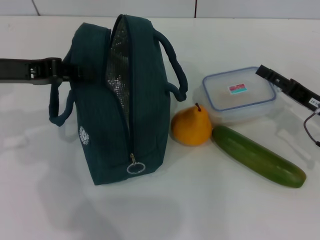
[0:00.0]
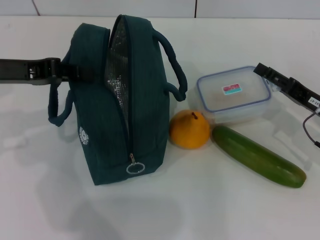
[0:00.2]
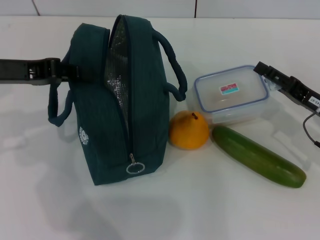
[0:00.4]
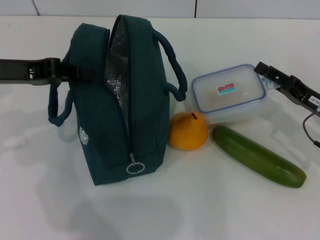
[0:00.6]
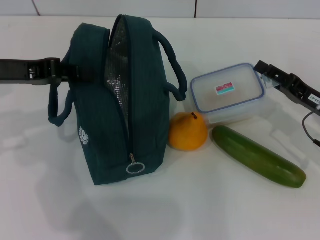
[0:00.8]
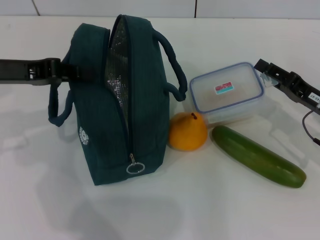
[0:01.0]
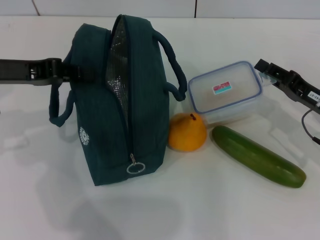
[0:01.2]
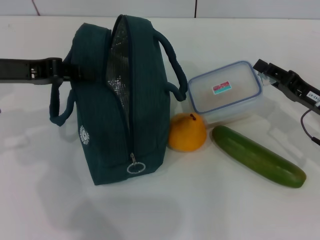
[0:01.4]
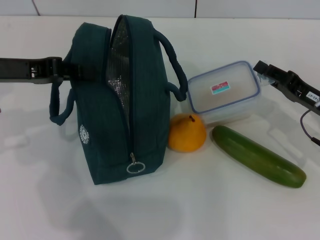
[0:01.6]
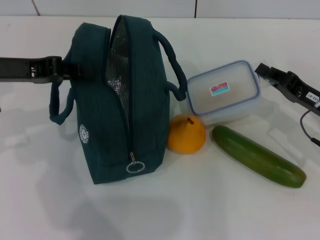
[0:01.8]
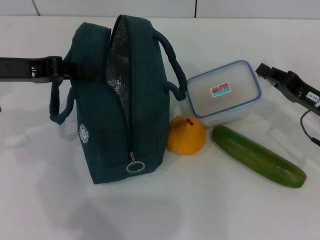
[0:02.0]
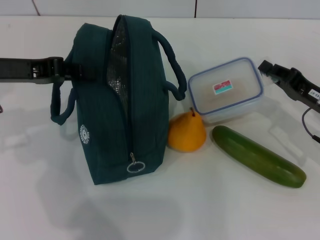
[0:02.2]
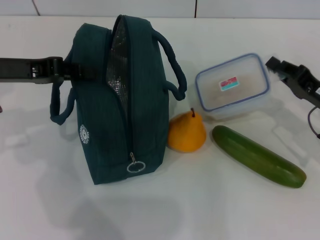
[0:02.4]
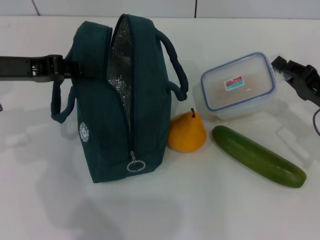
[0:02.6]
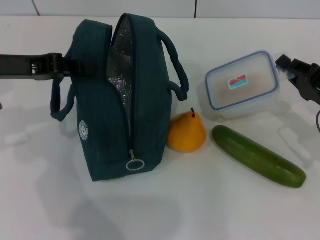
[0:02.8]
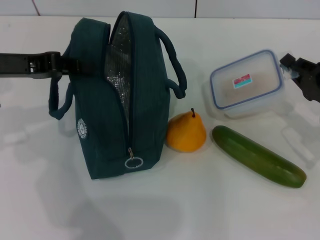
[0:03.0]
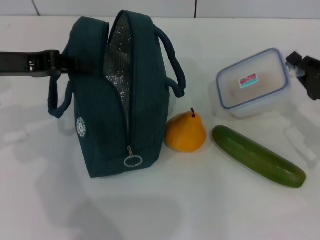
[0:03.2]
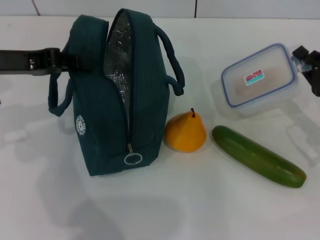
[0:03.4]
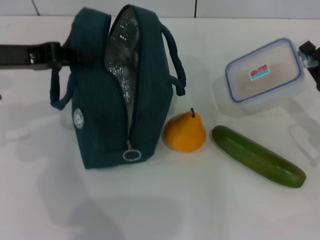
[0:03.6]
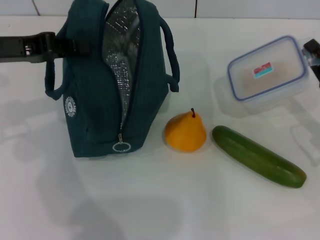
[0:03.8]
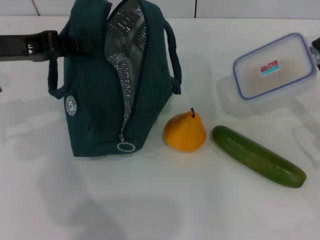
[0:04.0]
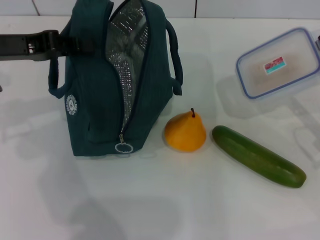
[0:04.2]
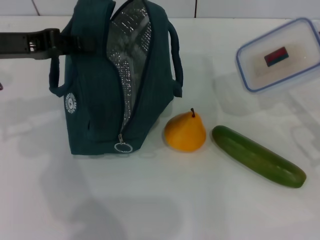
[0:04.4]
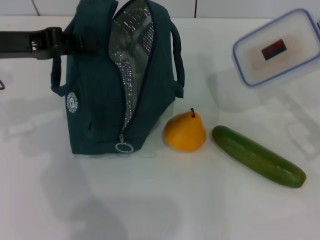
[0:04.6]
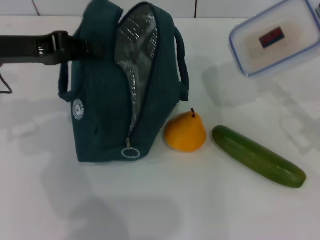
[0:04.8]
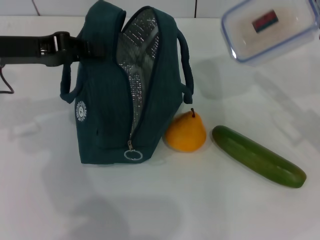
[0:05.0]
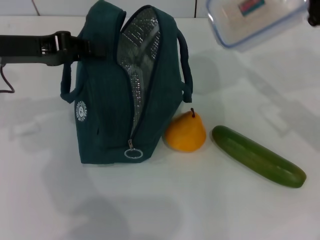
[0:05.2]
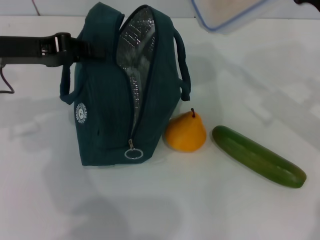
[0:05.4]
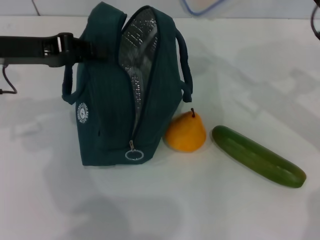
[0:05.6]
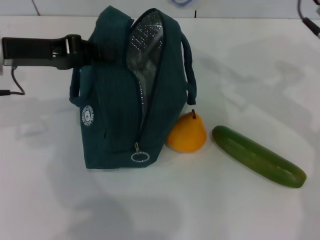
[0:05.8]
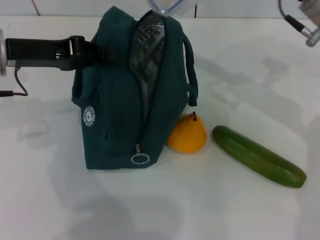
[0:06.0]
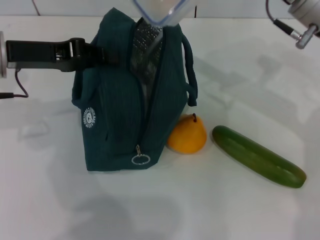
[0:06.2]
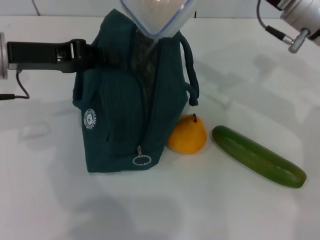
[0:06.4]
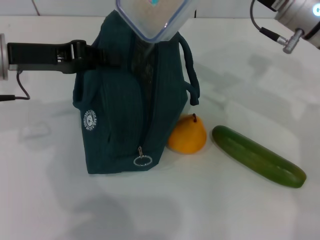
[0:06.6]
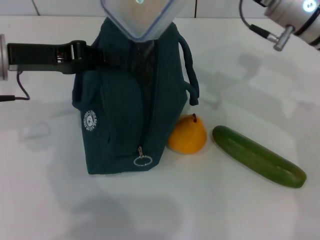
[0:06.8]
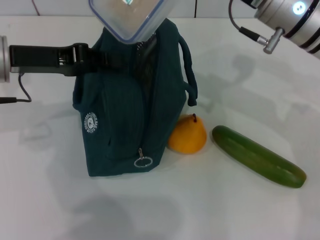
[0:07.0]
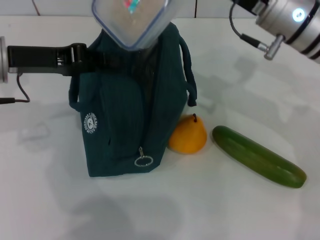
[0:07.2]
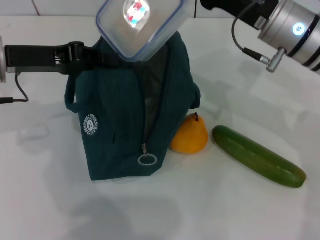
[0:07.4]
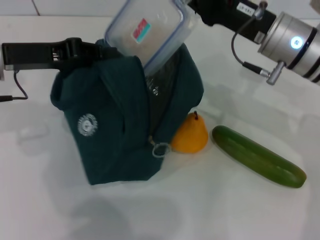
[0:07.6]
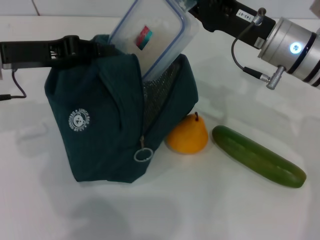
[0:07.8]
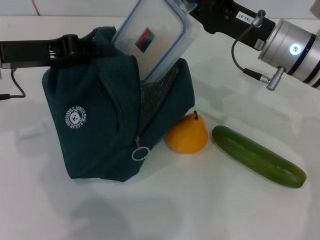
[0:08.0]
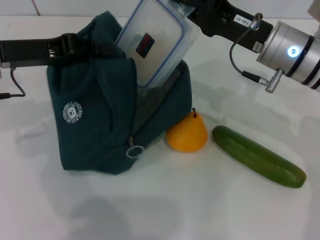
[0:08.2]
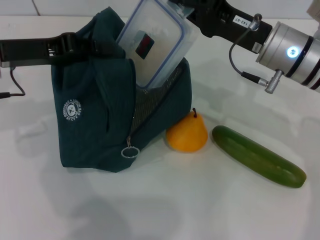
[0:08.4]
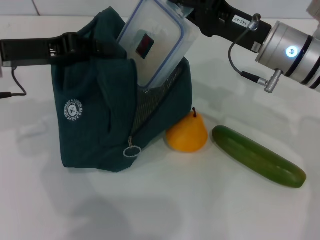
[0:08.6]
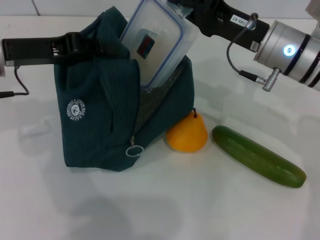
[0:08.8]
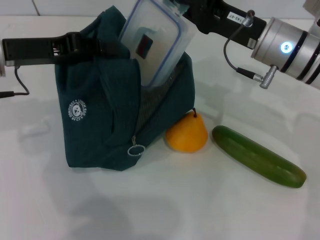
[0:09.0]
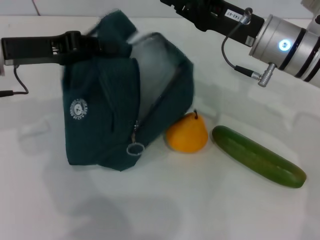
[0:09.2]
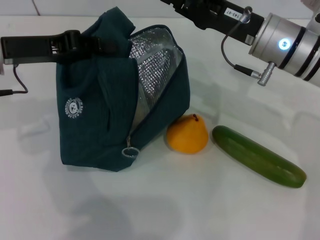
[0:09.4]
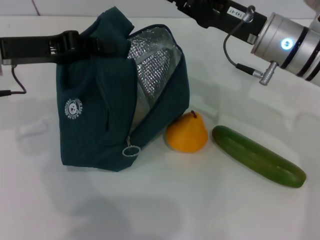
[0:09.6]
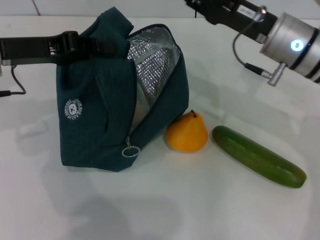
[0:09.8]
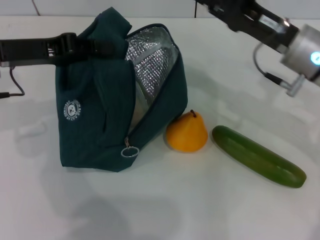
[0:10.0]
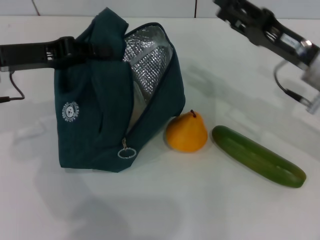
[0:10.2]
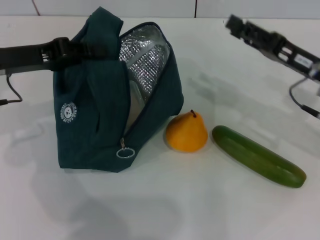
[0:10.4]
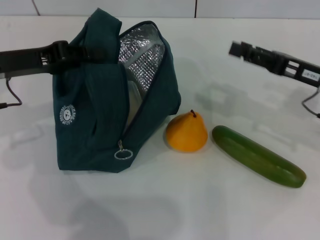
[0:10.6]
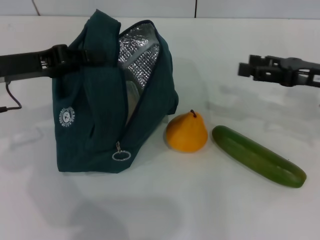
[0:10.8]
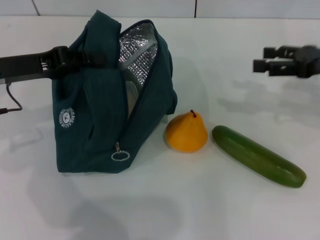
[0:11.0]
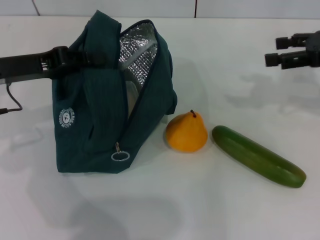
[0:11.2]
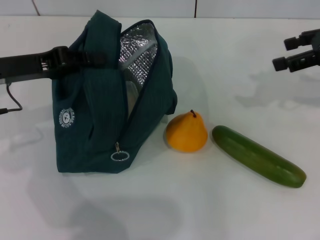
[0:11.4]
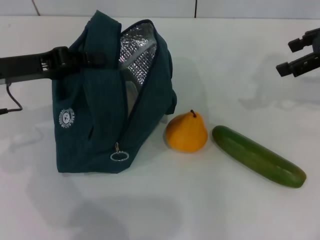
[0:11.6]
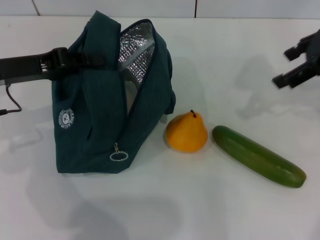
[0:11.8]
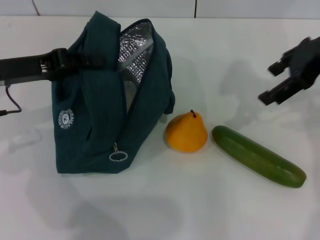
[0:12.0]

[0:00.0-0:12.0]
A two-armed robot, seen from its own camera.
Step, 0:02.0 to 0:09.2: Place the lunch box into the lunch bag with your right hand.
0:00.0 to 0:01.6: The right gripper closes its fingers.
0:01.6 to 0:03.0: The grippers move only a little.
0:04.4 to 0:06.0: The right gripper goes approximately 20 cm to the left, upward and forward.
0:06.0 to 0:07.6: The right gripper ends up some 5 cm from where it was.
0:09.0 to 0:10.4: The right gripper heads to the right, covering about 10 cm, and opens its fingers.
0:10.4 to 0:12.0: The right gripper goes roughly 15 cm upward.

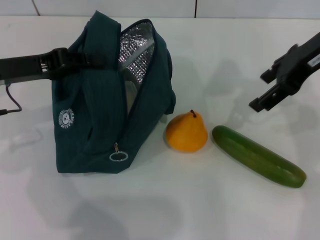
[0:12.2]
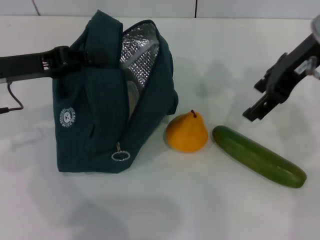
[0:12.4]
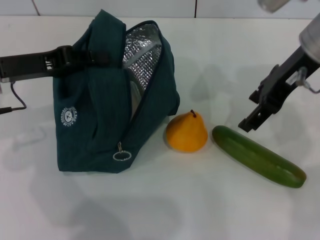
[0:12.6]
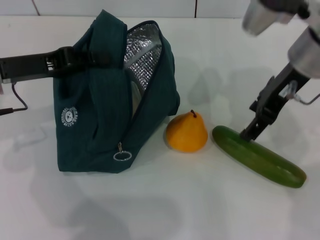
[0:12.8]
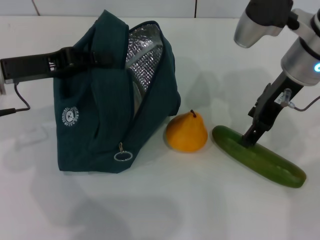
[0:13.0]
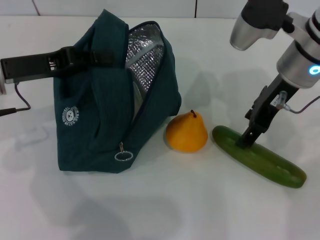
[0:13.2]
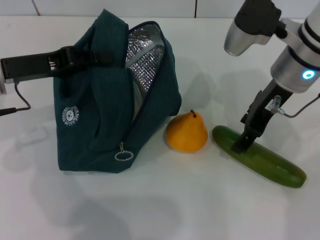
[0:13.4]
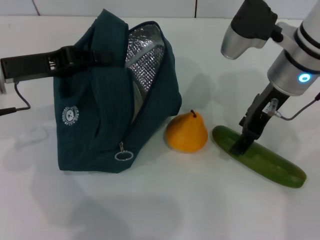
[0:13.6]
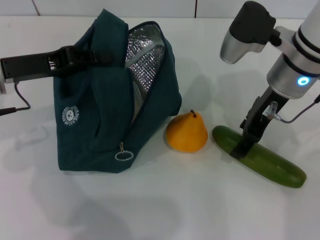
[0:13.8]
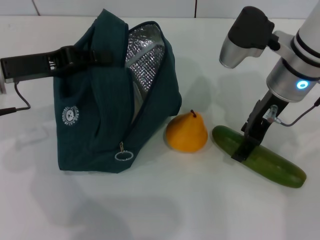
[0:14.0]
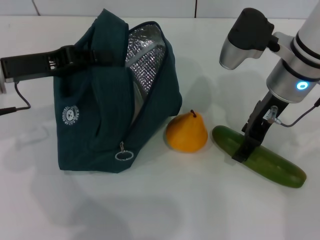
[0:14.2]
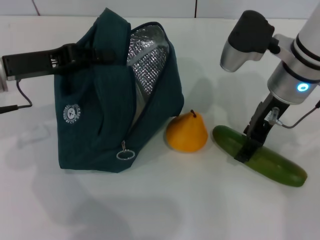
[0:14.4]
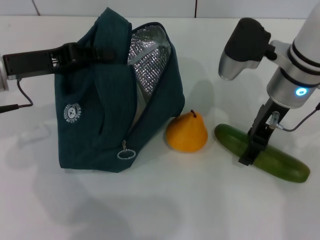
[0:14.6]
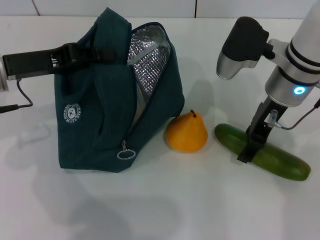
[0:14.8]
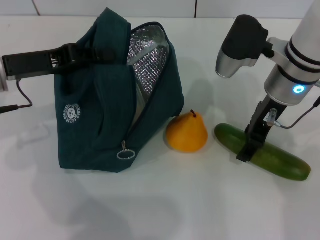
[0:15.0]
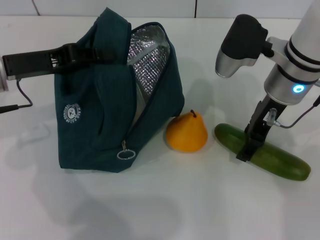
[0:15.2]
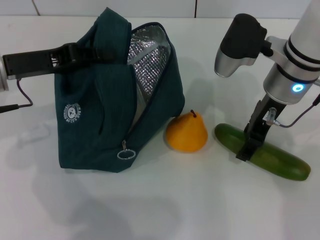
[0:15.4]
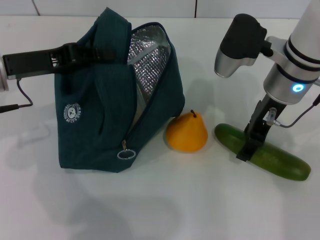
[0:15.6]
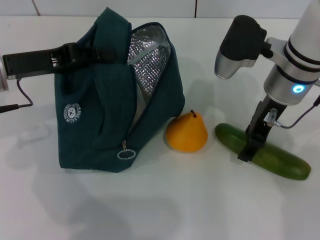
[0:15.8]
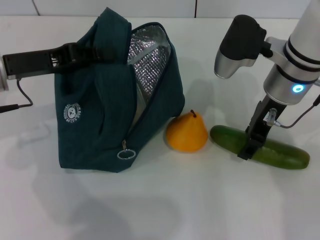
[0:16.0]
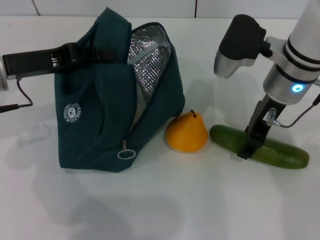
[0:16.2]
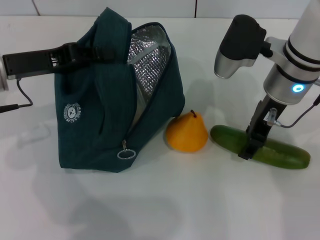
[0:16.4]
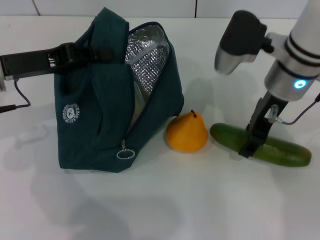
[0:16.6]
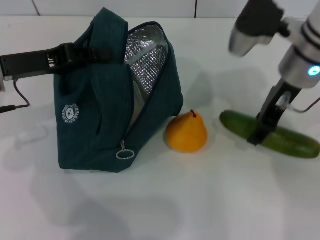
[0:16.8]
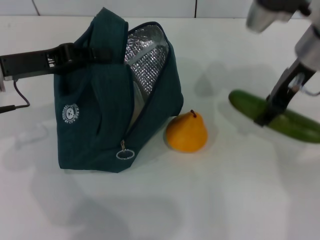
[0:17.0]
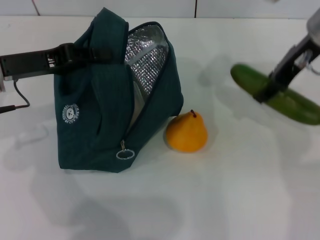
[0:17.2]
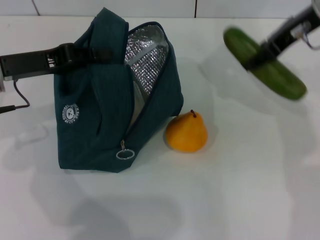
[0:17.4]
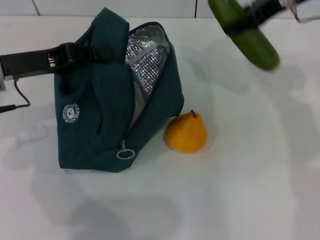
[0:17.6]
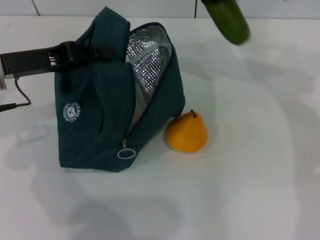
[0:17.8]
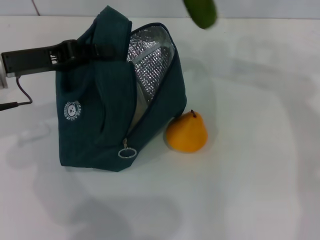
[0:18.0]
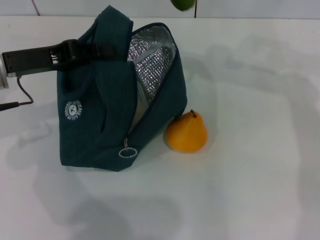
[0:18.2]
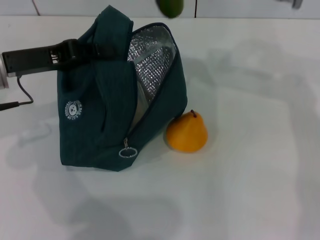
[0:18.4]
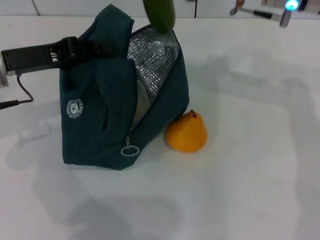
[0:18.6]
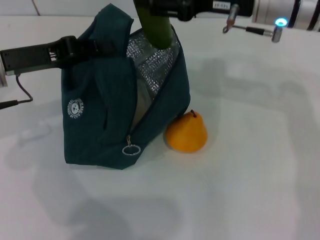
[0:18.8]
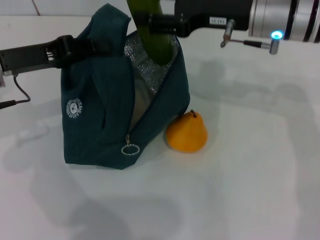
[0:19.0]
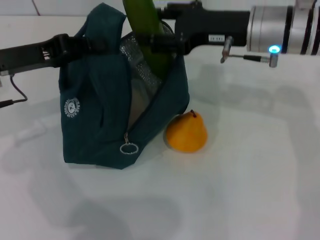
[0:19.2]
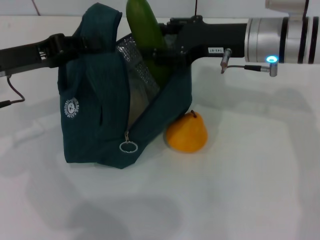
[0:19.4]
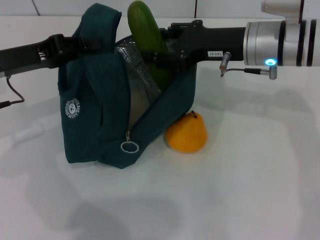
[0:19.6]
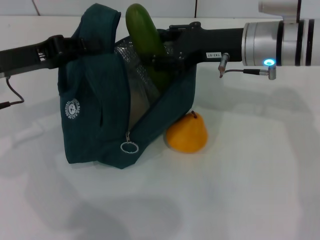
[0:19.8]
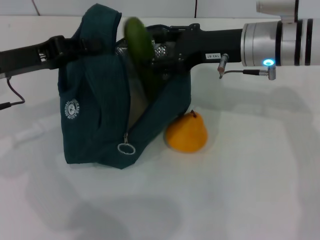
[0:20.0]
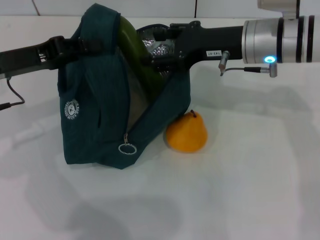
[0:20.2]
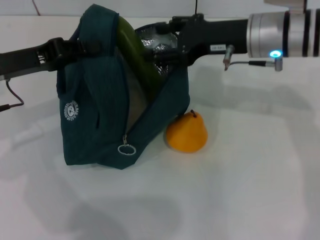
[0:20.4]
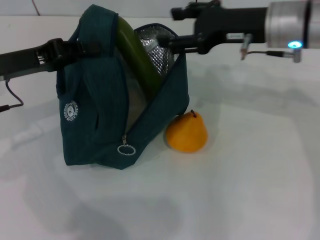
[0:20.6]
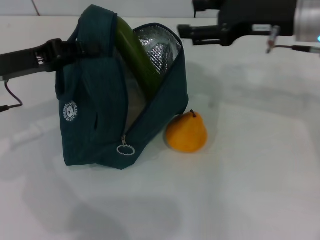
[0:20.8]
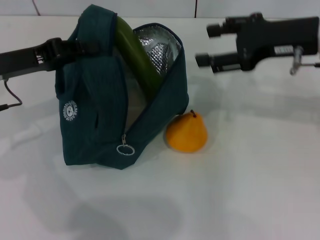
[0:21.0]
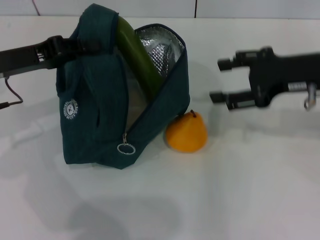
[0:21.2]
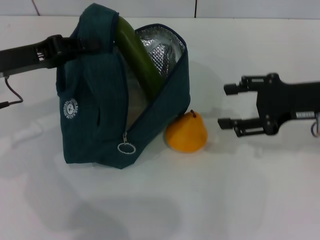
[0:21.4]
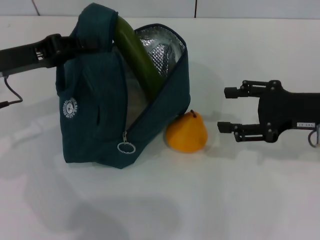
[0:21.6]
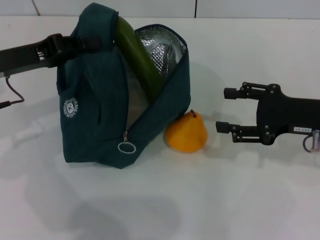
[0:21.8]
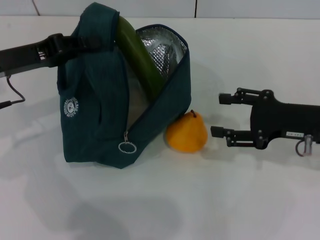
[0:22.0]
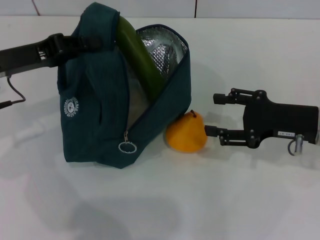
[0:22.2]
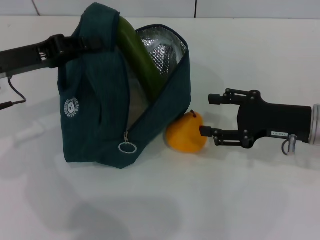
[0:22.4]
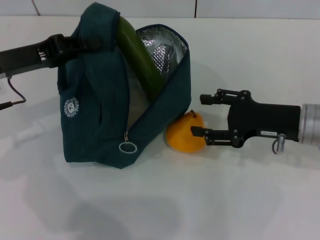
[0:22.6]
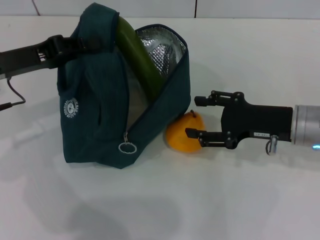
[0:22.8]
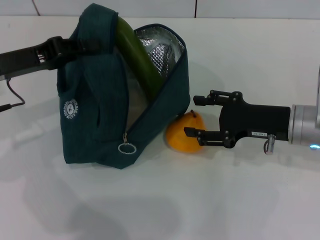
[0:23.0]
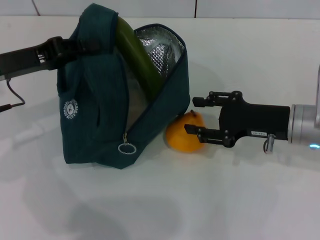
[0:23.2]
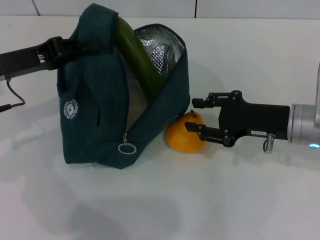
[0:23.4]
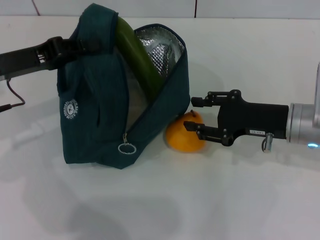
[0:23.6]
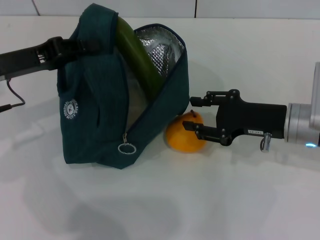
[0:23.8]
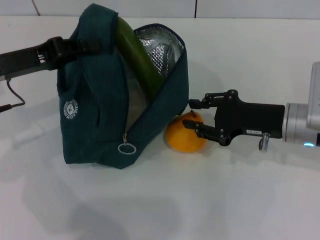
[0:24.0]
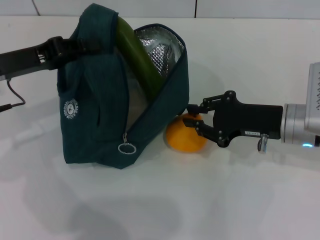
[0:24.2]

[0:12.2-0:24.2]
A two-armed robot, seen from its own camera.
Step, 0:12.2 to 0:16.0: Pick up the cucumber with your right hand.
Step, 0:16.2 to 0:20.2: Put the cucumber into the lunch bag with your right hand.
0:12.2 to 0:13.8: The right gripper moves downward and to the left, approximately 10 cm.
0:13.8 to 0:15.2: The grippers make only small movements.
0:15.2 to 0:16.6: Neither gripper changes place.
0:16.6 to 0:18.2: The right gripper is displaced upward by some 10 cm.
0:18.2 to 0:19.8: The right gripper is displaced downward by approximately 10 cm.
0:19.8 to 0:21.2: The right gripper heads to the right, covering approximately 10 cm.
0:21.2 to 0:22.6: The right gripper moves downward, some 10 cm.
0:22.6 to 0:24.2: The grippers move only a little.
